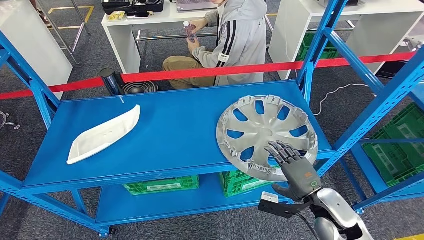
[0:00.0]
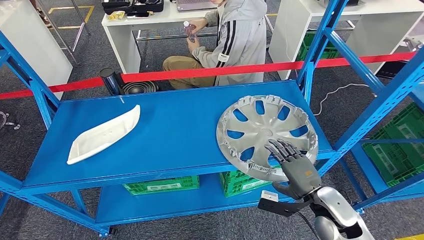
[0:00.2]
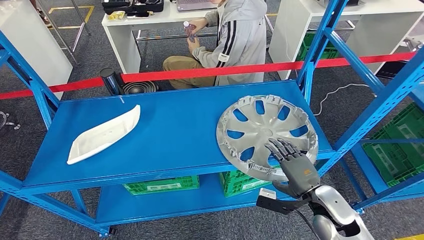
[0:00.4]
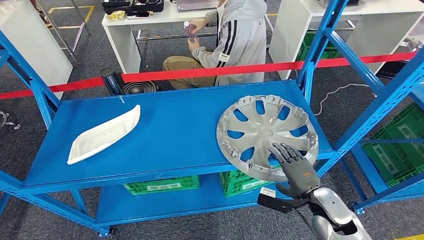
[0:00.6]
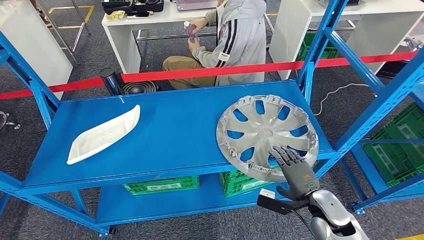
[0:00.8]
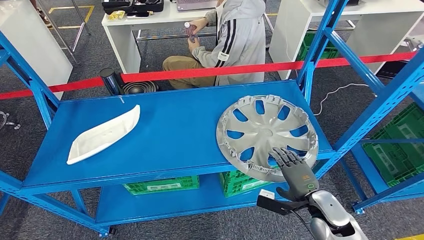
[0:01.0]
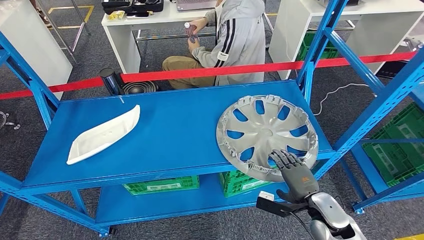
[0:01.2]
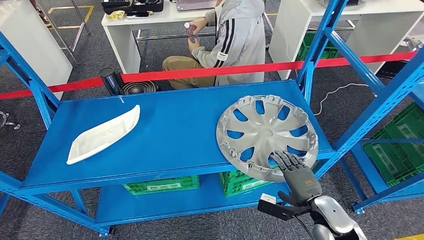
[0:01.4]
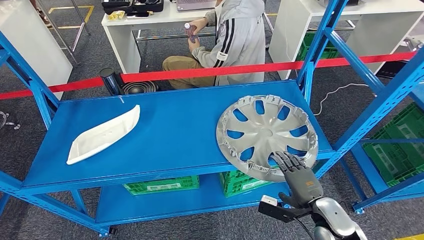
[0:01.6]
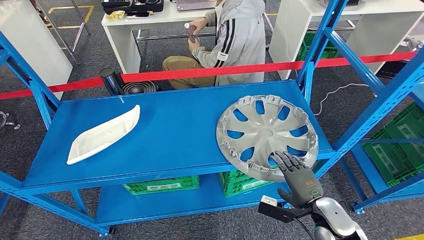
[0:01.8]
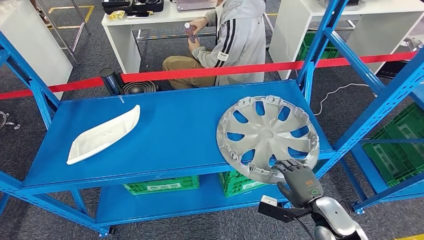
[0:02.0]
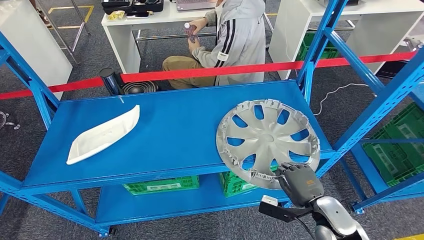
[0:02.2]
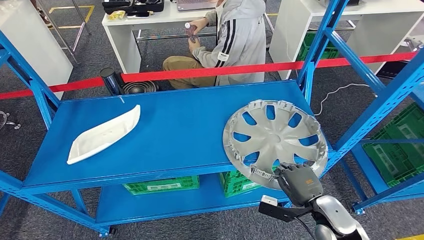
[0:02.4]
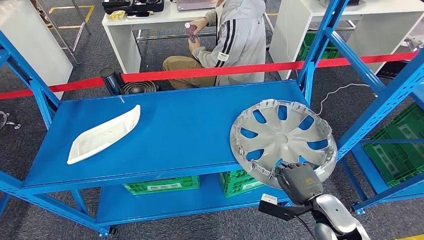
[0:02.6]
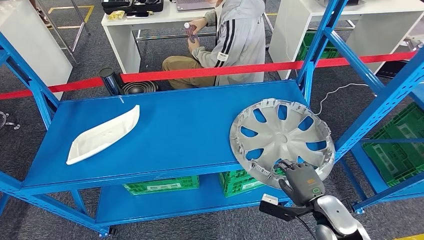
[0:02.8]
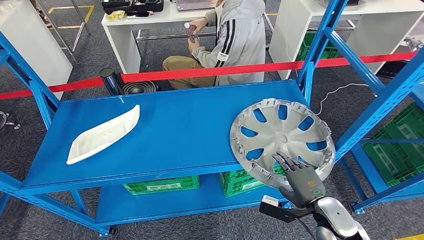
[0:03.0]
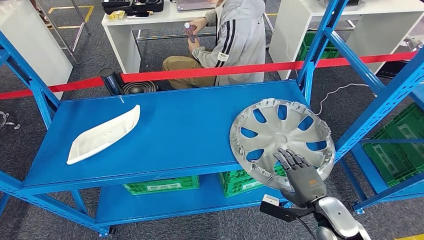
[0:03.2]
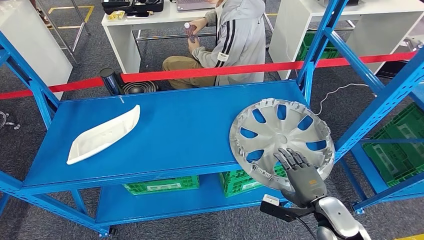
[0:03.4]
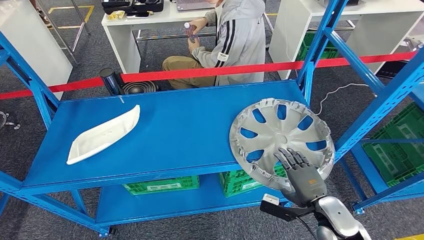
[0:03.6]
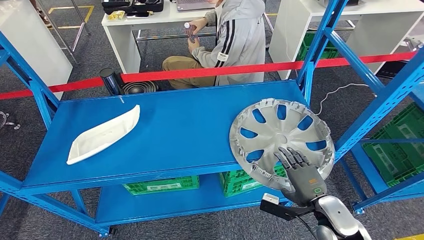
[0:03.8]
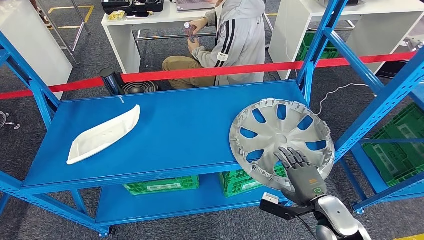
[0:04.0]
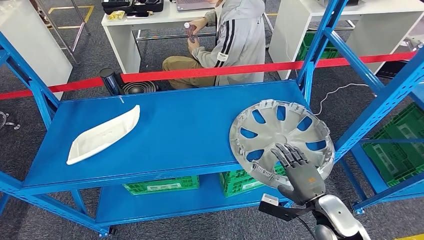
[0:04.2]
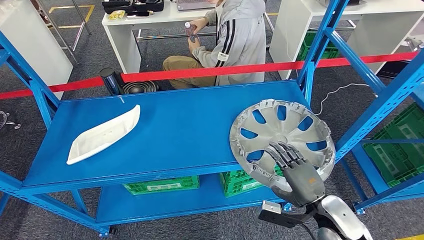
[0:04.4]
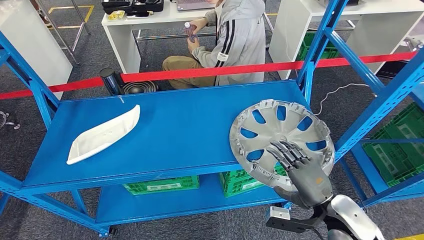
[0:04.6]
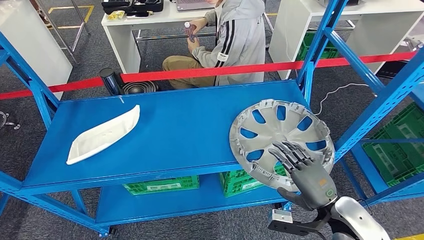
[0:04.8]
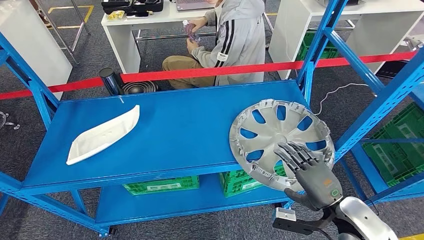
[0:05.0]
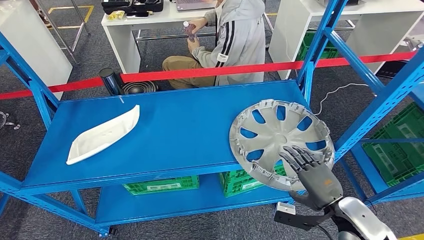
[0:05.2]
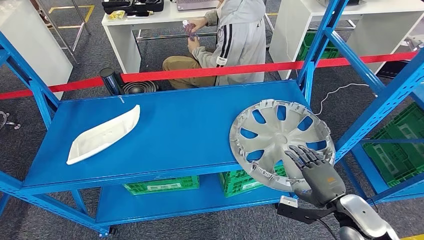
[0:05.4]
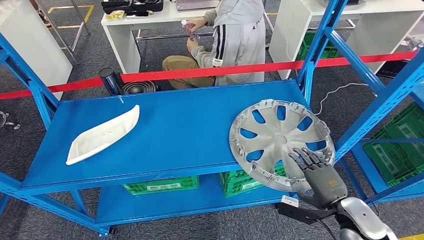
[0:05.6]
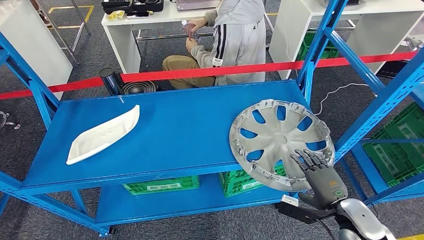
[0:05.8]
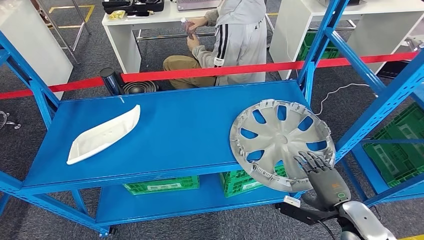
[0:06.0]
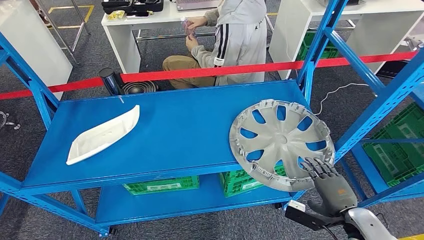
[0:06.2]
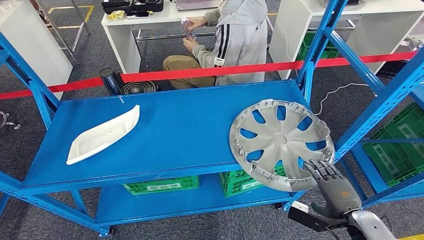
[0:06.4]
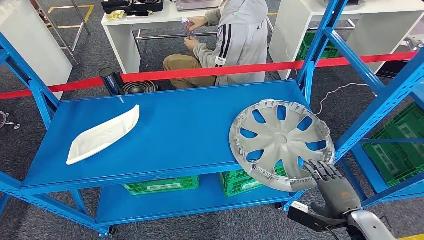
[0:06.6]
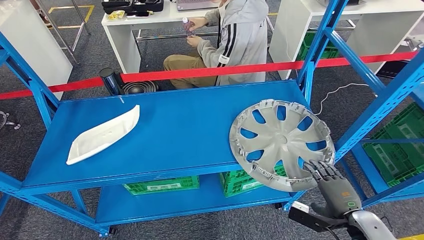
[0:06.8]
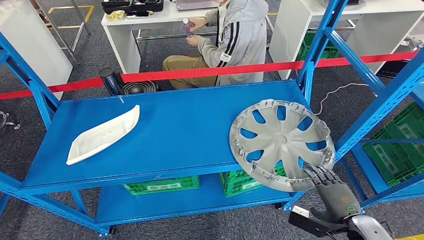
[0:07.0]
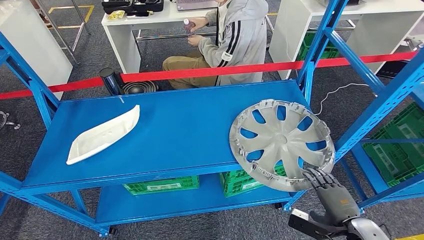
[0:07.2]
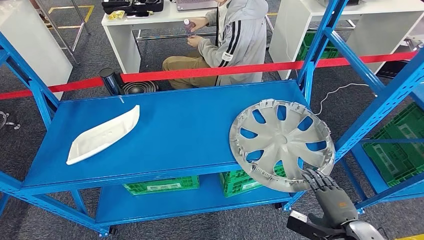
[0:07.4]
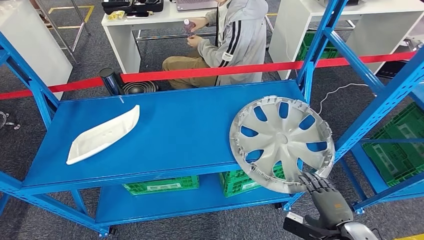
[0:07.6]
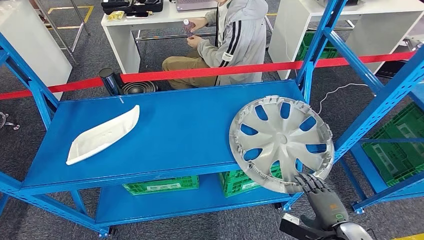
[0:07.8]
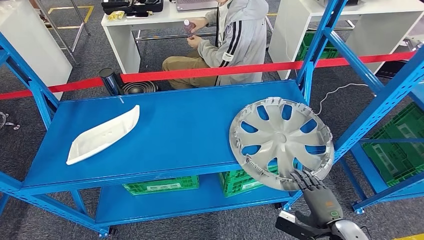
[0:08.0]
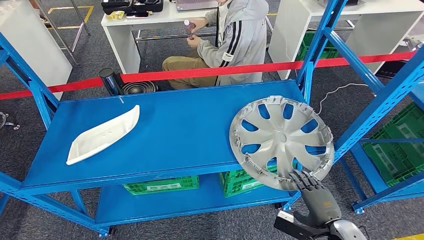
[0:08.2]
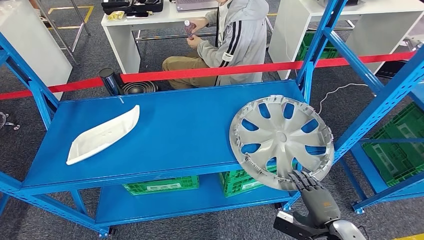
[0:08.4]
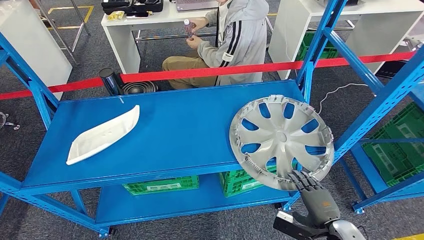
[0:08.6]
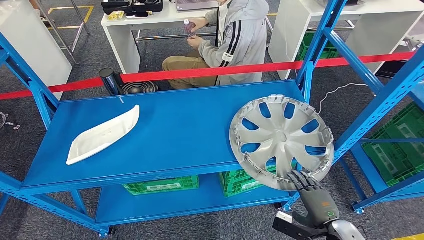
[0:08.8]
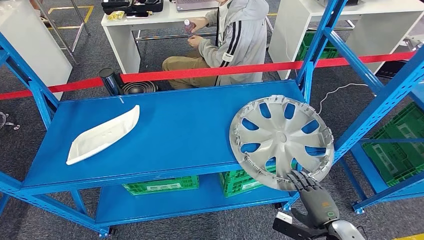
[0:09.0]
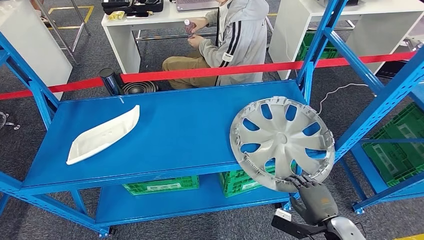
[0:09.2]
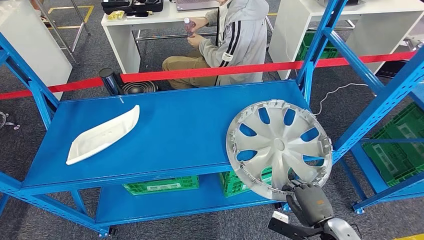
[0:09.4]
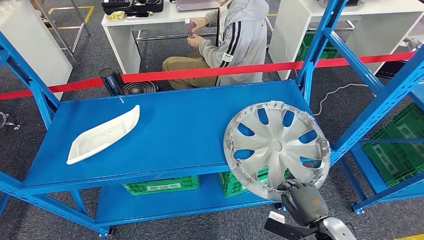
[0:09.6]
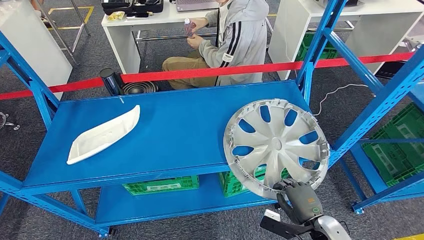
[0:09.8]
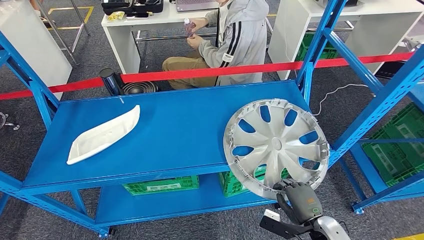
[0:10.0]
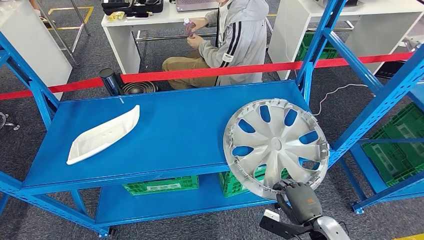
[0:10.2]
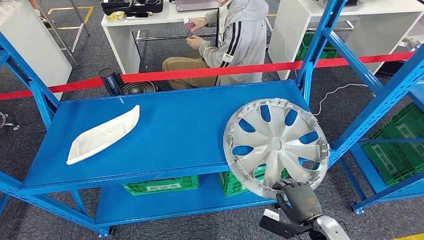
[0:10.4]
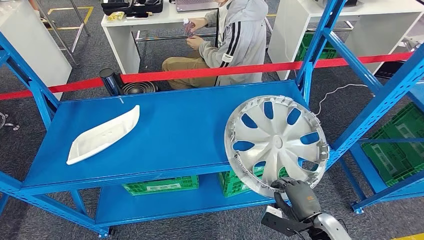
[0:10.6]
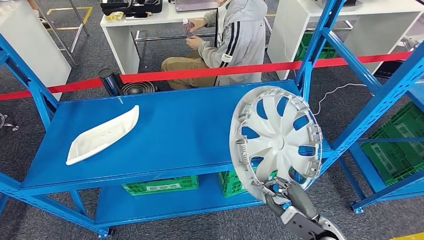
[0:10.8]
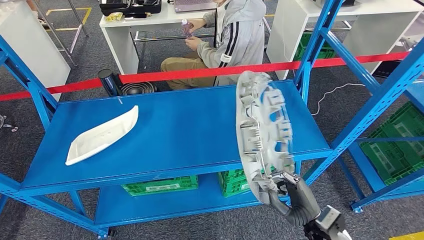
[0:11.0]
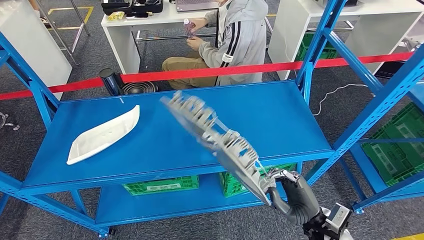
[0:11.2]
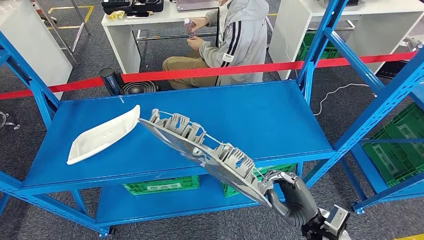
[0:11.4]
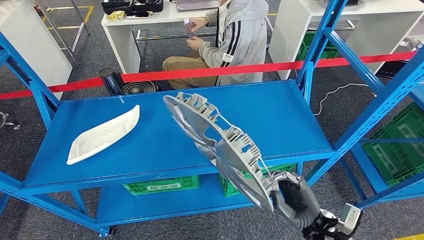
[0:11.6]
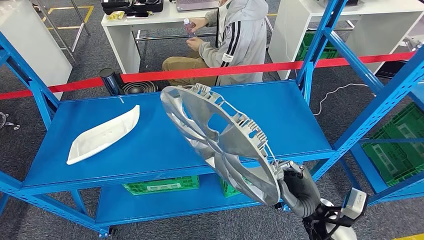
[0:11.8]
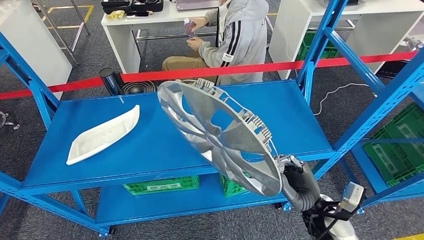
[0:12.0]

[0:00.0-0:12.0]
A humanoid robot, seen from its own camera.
Step, 0:00.0 to 0:11.4: Pick up the small component from the shelf.
0:00.0 to 0:01.6: There are only small adjustments of the hands.
0:01.6 to 0:03.0: Both hands stay put.
0:03.0 to 0:04.4: The hands make only small movements.
0:04.4 to 0:06.0: The right hand shifts about 5 cm to the right.
0:06.0 to 0:07.6: The right hand shifts by about 5 cm.
0:07.6 to 0:09.0: The hands stay close to where they were, moving slightly.
0:09.0 to 0:10.4: There are only small adjustments of the hands.
0:10.4 to 0:12.0: The right hand heads upward, covering some 5 cm.

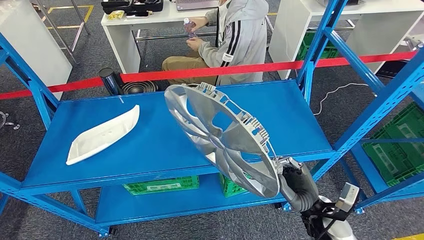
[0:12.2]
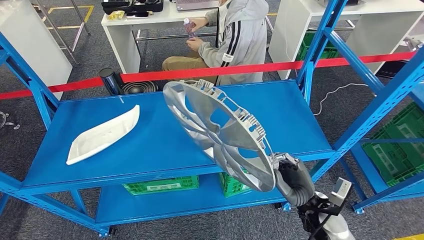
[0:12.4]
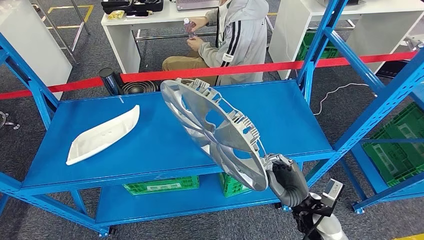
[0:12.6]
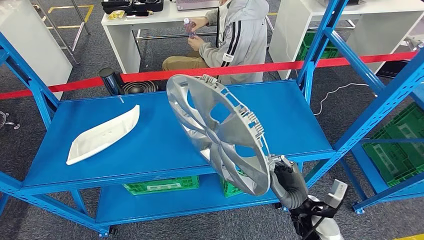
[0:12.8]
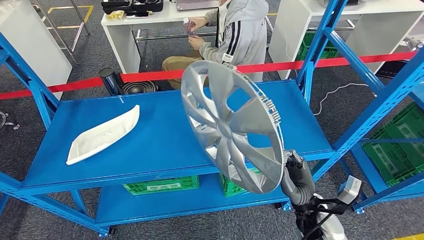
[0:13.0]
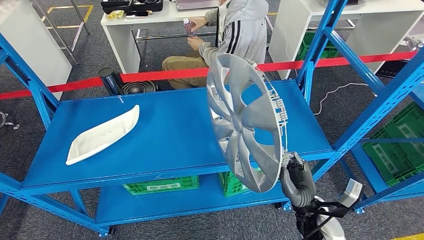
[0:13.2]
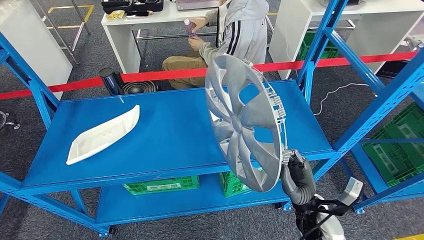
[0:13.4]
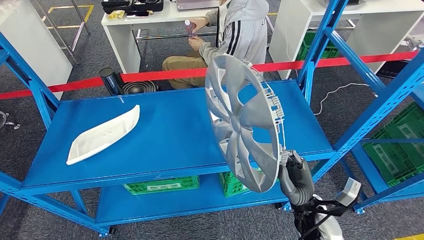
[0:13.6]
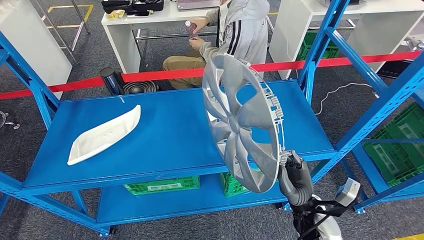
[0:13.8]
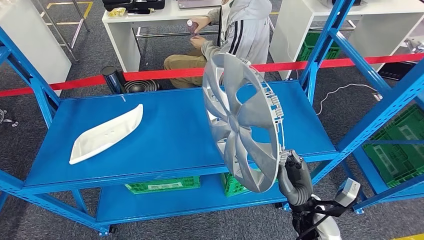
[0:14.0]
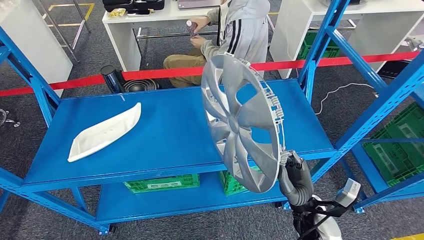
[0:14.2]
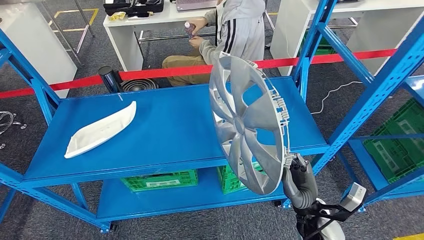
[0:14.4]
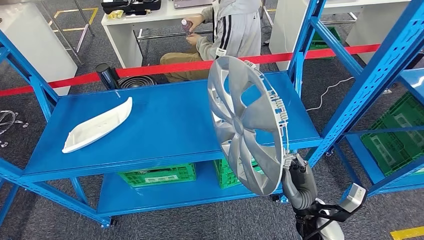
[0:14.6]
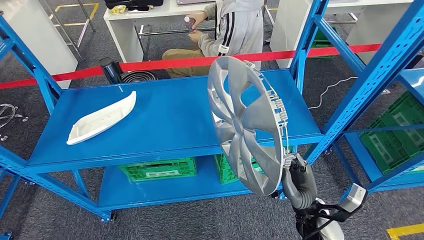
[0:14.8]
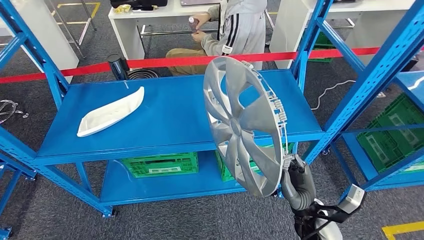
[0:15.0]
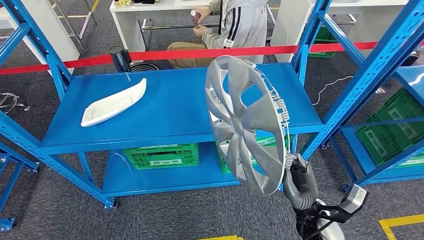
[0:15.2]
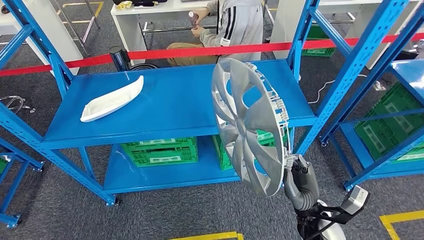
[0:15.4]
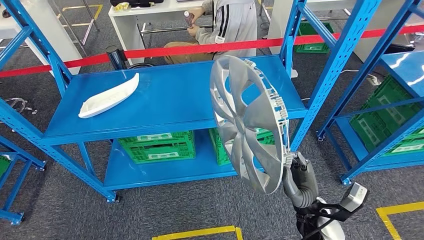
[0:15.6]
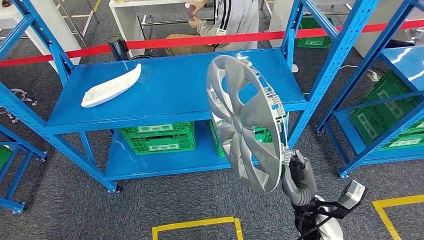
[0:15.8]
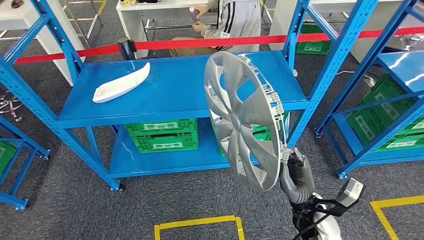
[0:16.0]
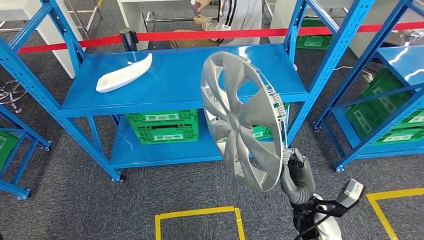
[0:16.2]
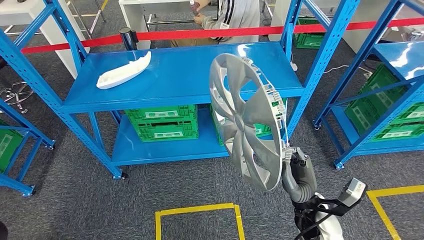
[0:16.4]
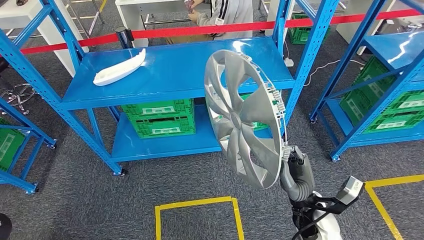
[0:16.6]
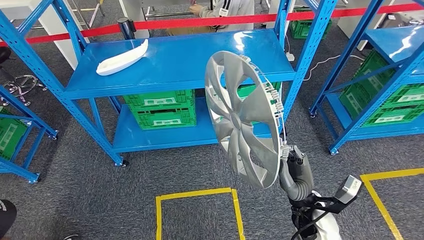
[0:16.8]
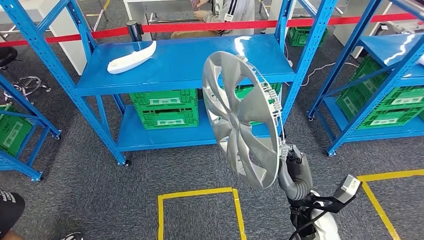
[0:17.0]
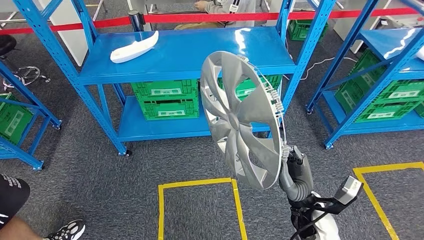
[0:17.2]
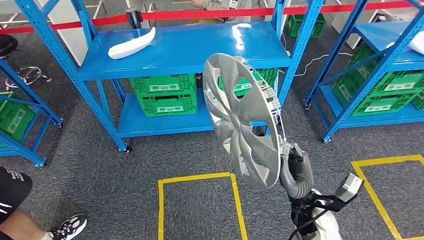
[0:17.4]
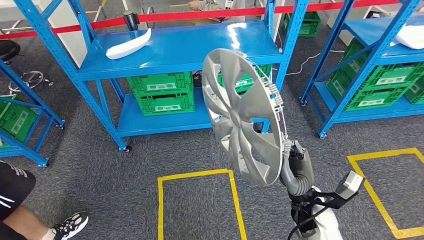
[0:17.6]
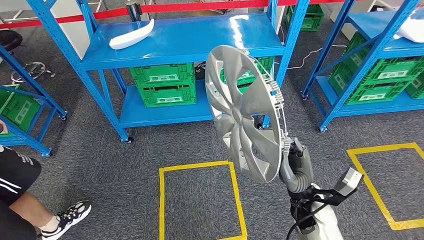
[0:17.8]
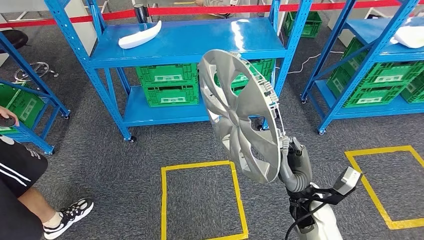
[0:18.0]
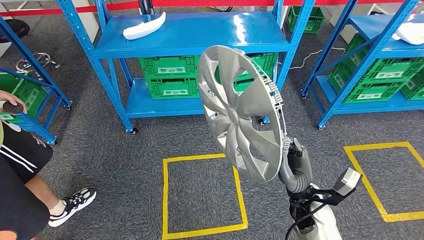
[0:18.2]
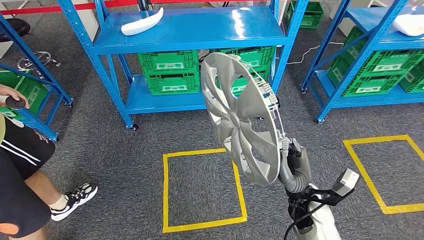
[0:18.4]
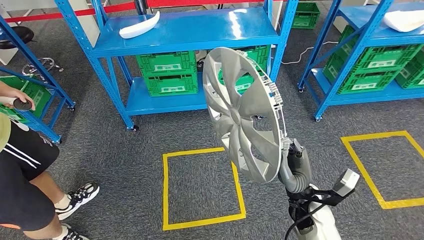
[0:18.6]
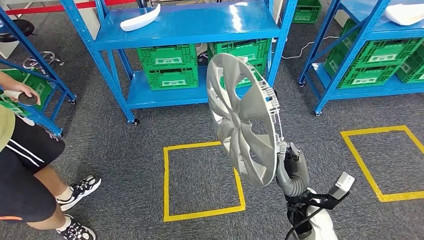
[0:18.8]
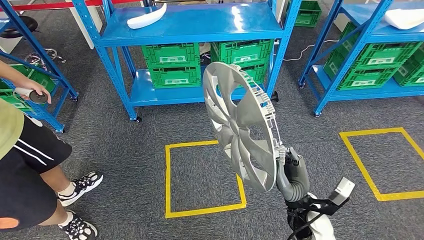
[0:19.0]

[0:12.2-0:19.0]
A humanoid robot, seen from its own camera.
0:12.2 to 0:13.6: The hands stay close to where they were, moving slightly.
